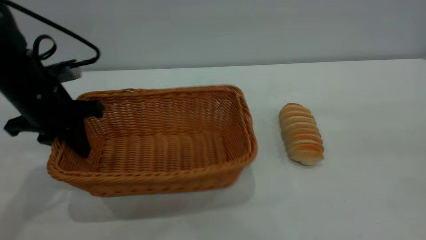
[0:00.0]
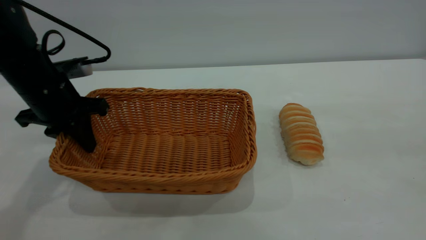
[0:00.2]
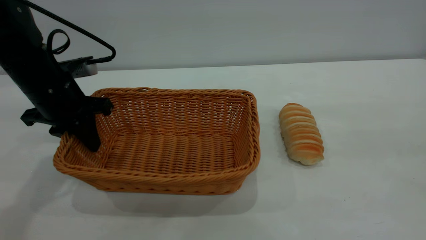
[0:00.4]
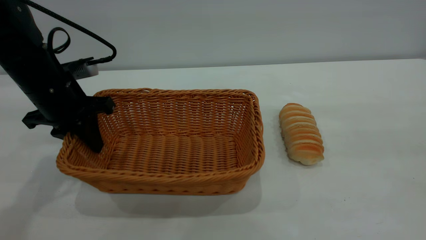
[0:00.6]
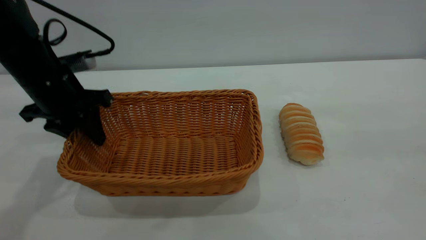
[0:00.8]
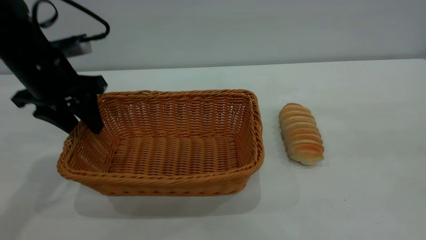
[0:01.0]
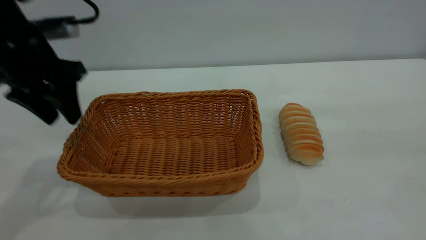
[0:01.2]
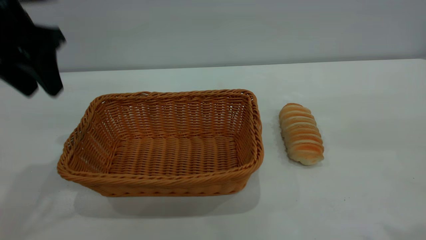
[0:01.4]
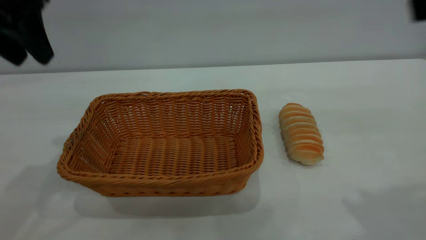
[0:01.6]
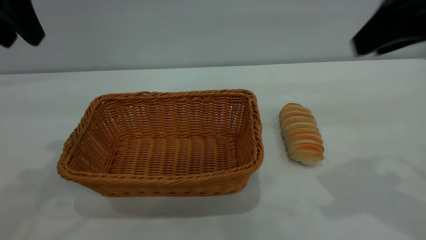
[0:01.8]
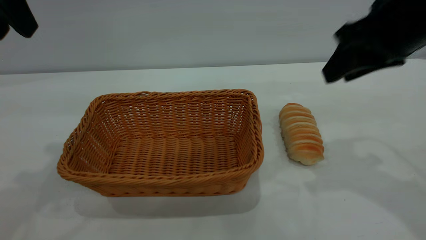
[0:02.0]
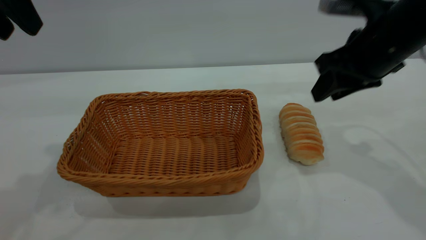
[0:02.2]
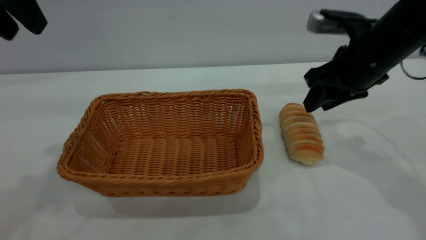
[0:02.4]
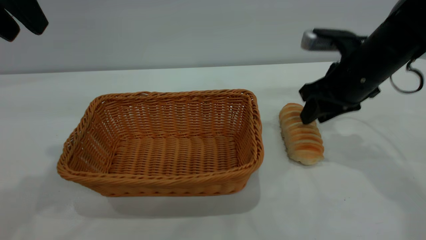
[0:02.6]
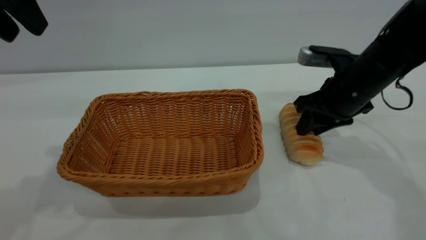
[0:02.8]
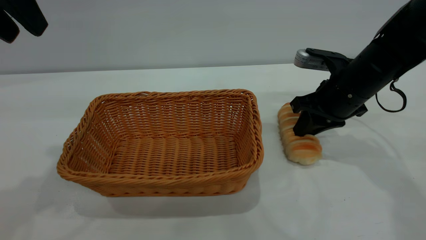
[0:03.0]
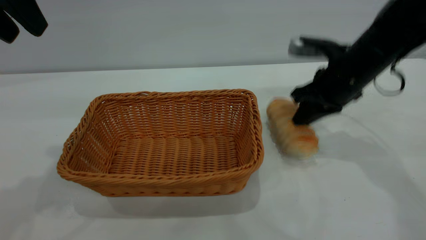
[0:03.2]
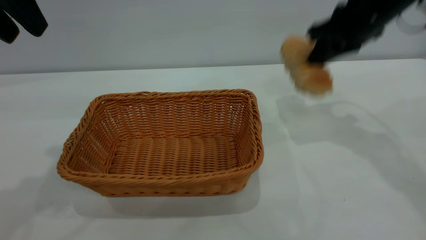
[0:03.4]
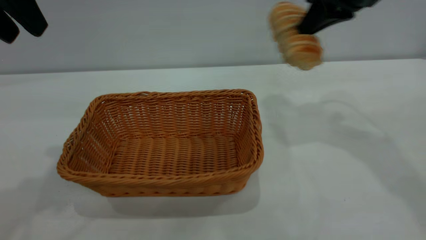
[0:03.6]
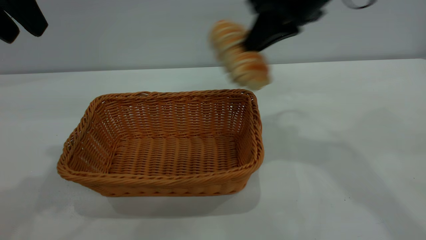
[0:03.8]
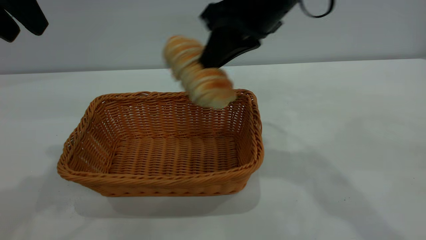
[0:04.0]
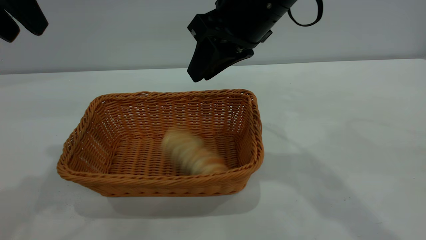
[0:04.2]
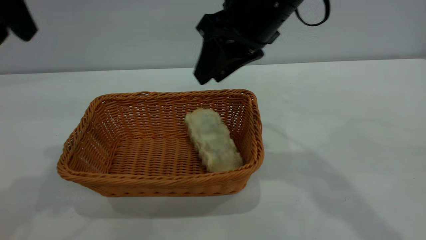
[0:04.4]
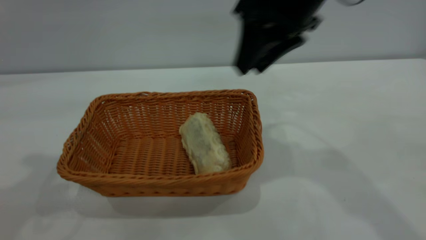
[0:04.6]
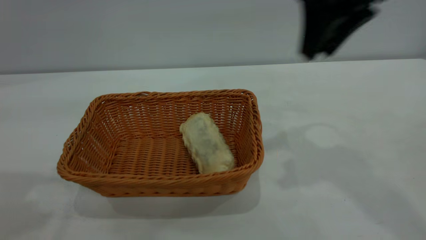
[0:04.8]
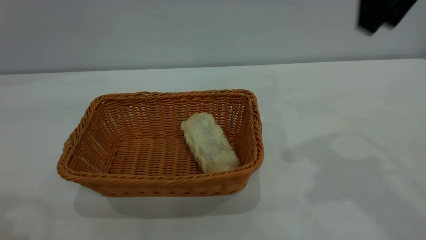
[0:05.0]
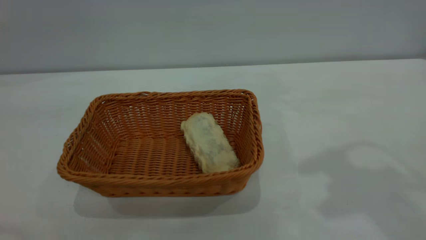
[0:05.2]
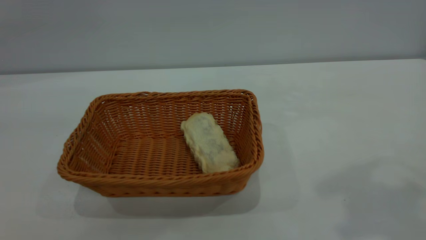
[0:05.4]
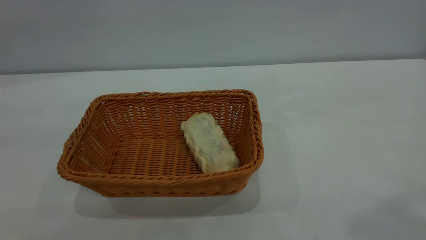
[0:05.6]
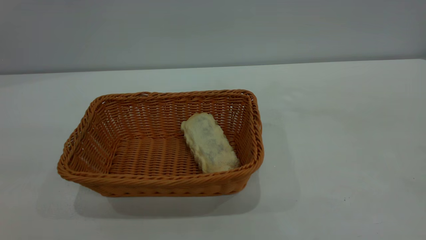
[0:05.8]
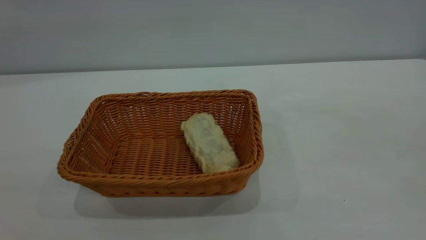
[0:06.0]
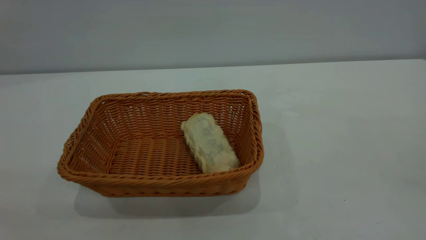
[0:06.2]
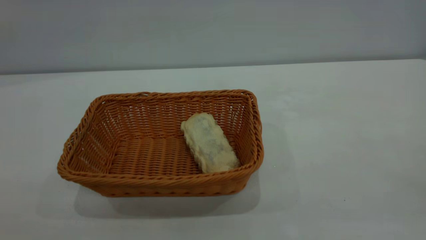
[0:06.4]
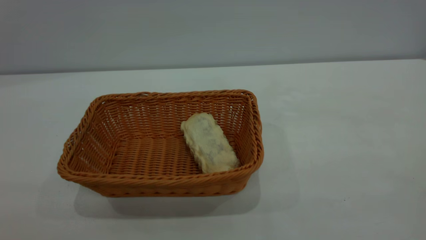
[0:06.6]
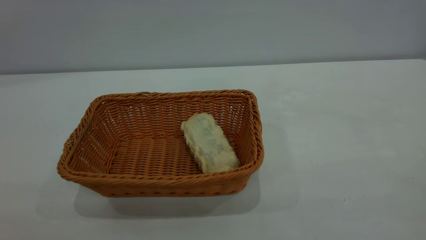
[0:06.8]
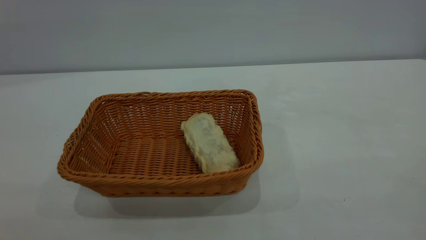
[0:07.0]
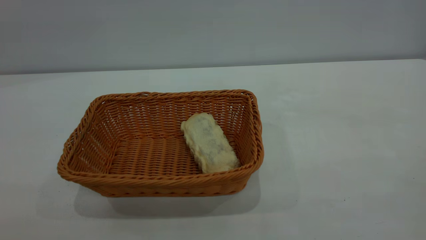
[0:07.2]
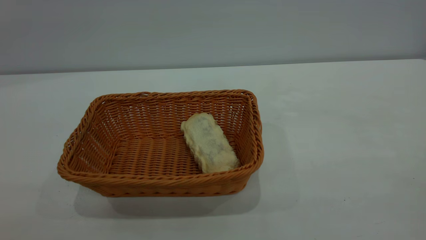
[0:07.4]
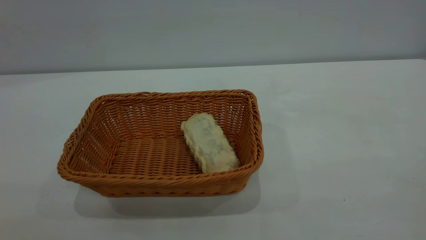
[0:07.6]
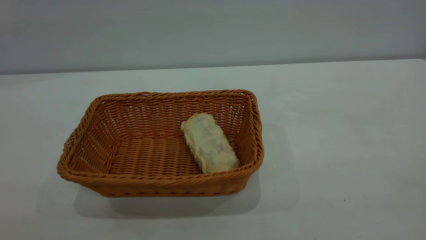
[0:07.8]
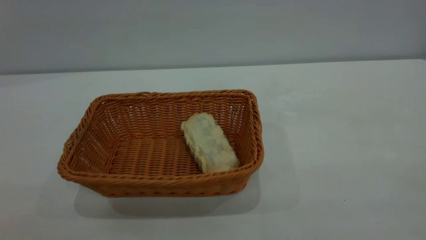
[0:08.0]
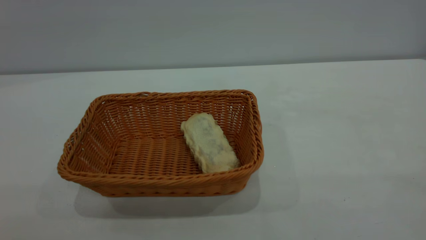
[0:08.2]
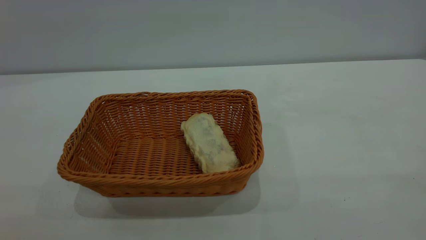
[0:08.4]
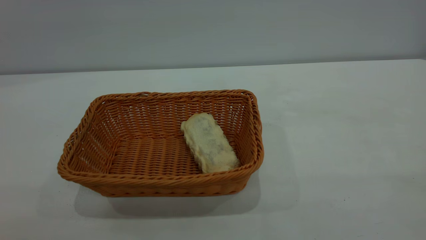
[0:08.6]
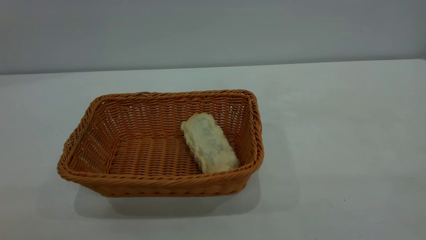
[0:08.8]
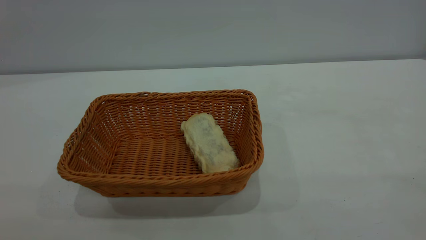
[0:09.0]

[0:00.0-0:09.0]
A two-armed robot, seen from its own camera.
Task of the whole recording: One hand grasps the yellow basket and places it in the middle of the table, while the other hand picks up the long bread and puts it into the yellow basket.
Step, 0:03.4 to 0:04.4: place the bread into the basket.
0:00.0 to 0:01.6: The right gripper goes roughly 10 cm forward. Meanwhile the left gripper goes about 15 cm upward, and opens.
0:01.6 to 0:03.0: The right gripper goes approximately 30 cm downward and forward, and closes.
0:03.0 to 0:04.4: The right gripper goes some 20 cm upward and to the left, and opens.
0:04.4 to 0:06.0: The left gripper shifts approximately 35 cm backward. Meanwhile the right gripper travels backward, to the right and upward by approximately 40 cm.
